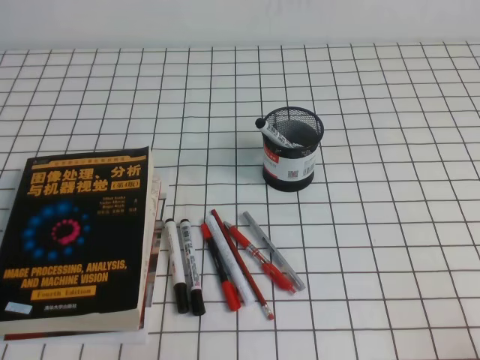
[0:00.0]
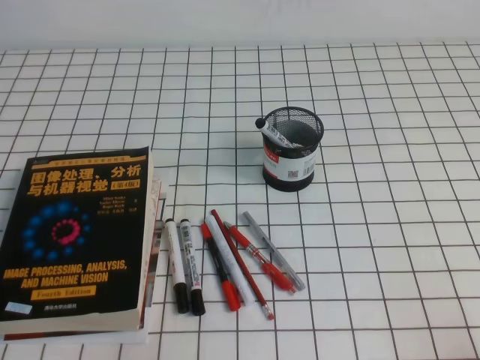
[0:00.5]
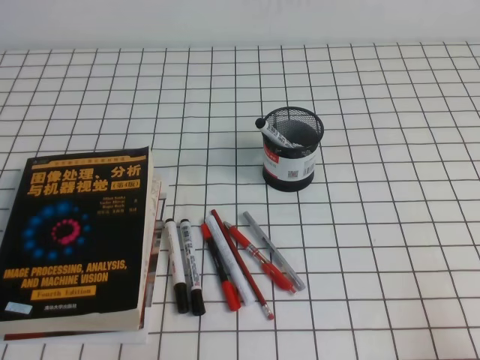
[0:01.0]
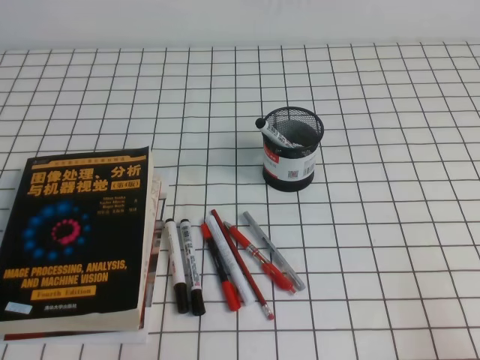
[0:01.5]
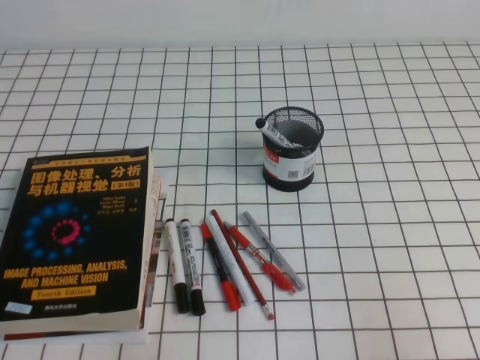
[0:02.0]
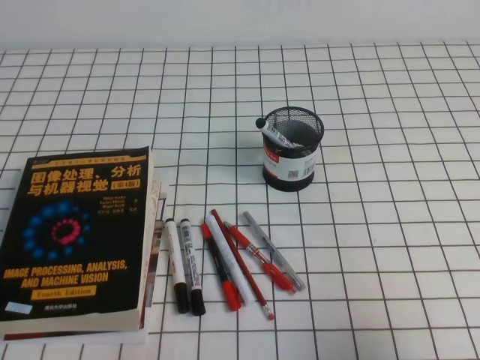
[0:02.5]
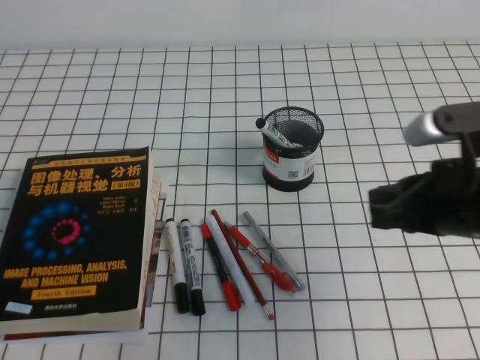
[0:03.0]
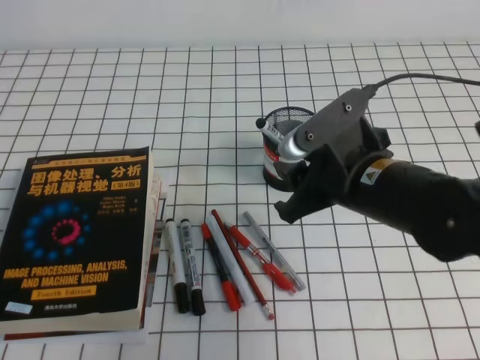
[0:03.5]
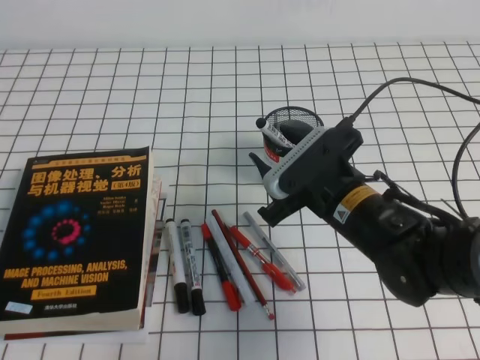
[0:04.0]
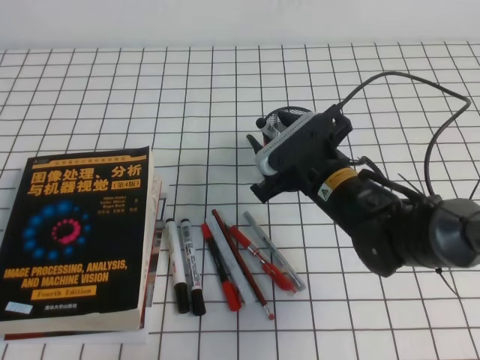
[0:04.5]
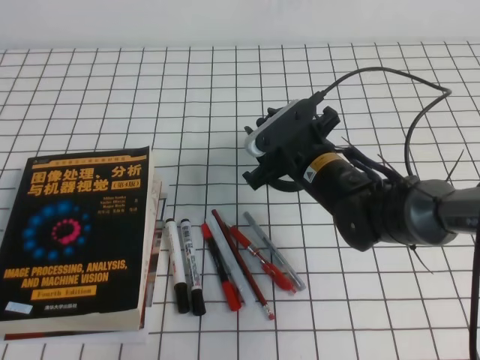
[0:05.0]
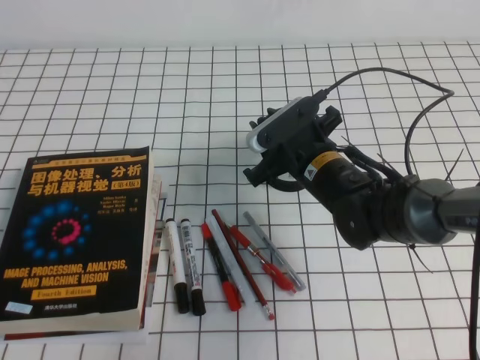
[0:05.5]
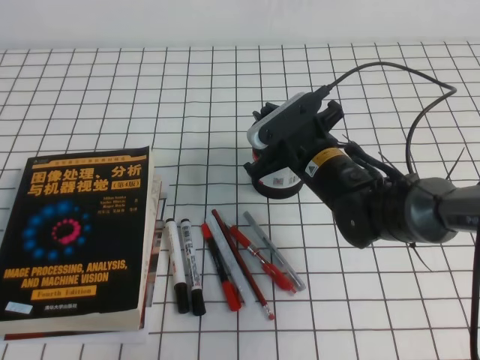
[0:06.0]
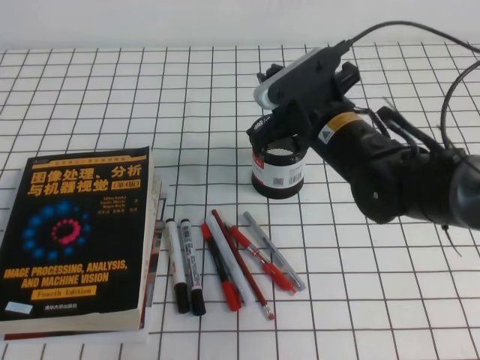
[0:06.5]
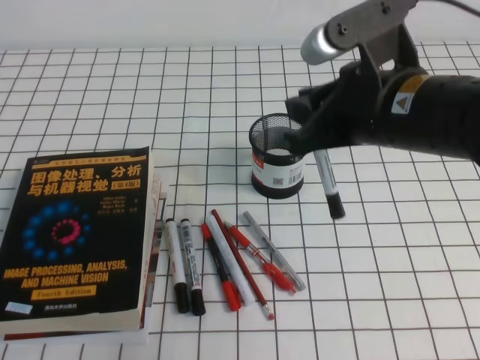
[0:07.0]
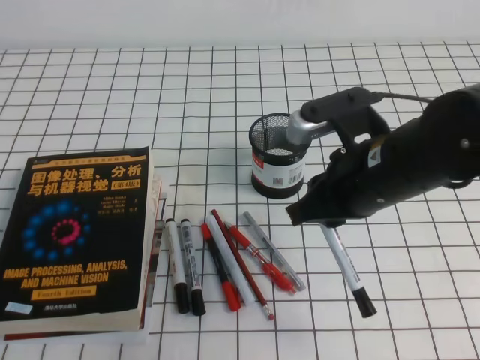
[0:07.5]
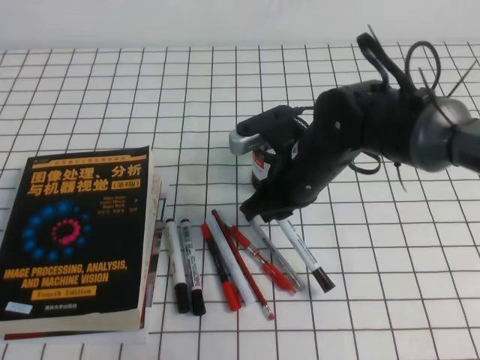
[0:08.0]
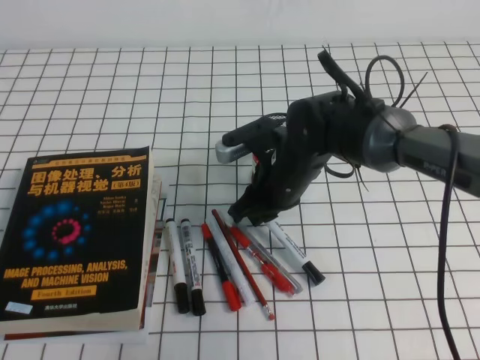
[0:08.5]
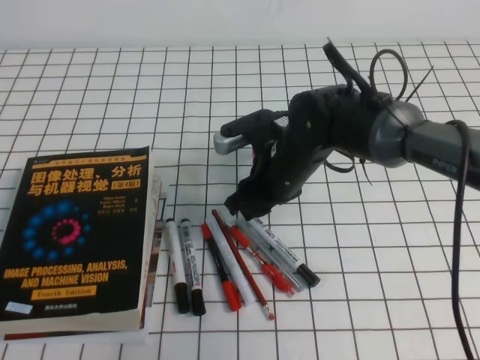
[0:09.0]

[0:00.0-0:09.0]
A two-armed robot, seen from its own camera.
0:02.0 to 0:04.5: The right gripper moves forward and to the left, roughly 35 cm, and opens its fingers.
0:04.5 to 0:07.0: The right gripper moves upward, some 15 cm, and closes its fingers.
0:07.0 to 0:09.0: The right gripper moves downward, forward and to the left, some 15 cm.

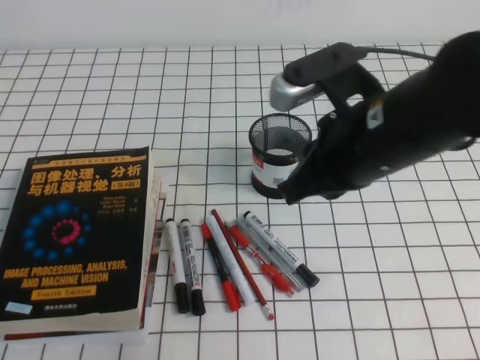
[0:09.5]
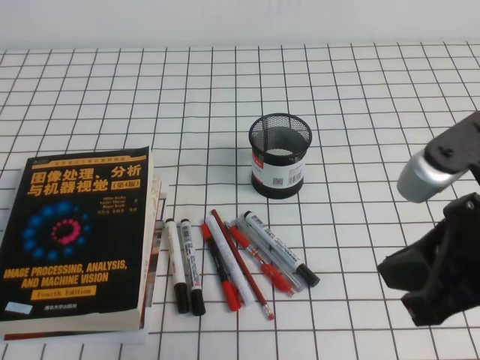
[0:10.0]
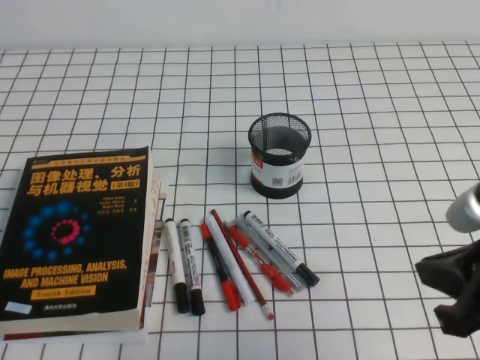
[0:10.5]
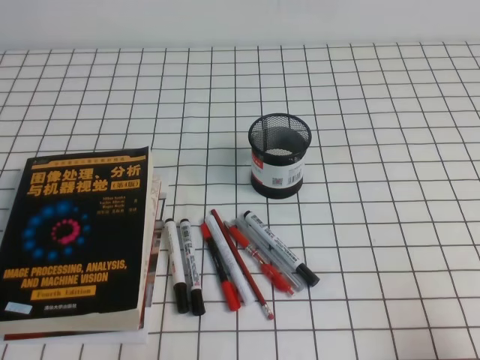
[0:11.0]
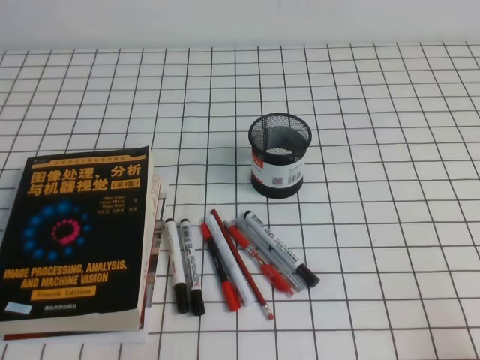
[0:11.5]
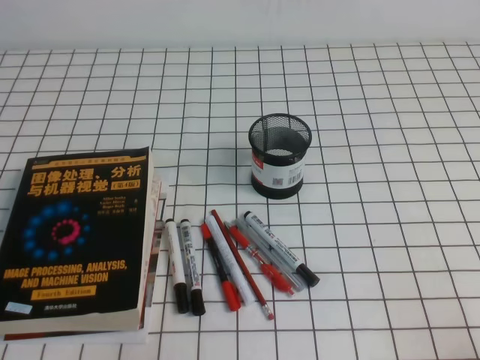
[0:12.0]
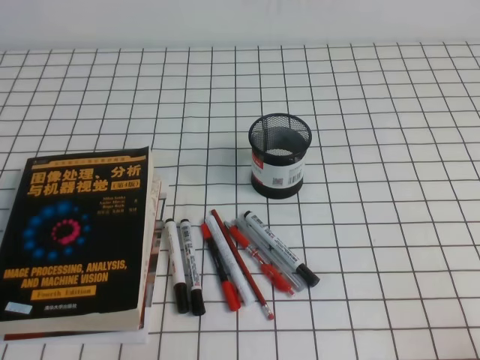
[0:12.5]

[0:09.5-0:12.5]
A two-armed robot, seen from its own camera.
Step, 0:09.5 to 0:12.5: Pick up the pen from the pen holder.
0:09.5 to 0:11.0: The right gripper shifts roughly 30 cm to the right, backward and downward.

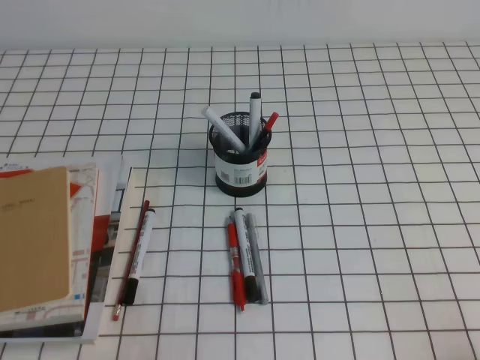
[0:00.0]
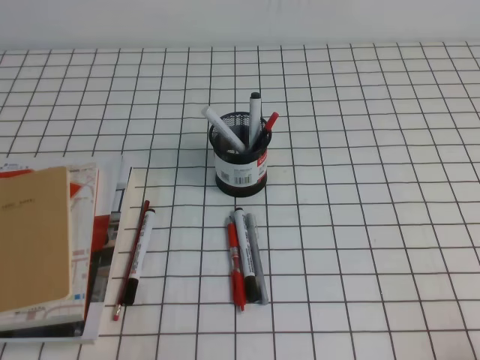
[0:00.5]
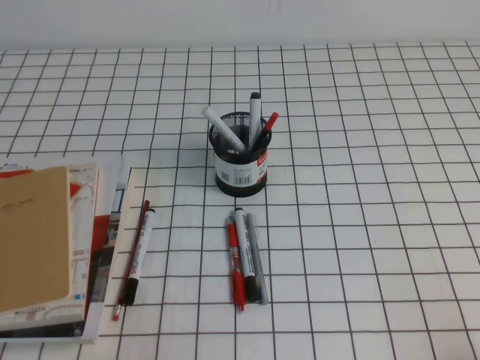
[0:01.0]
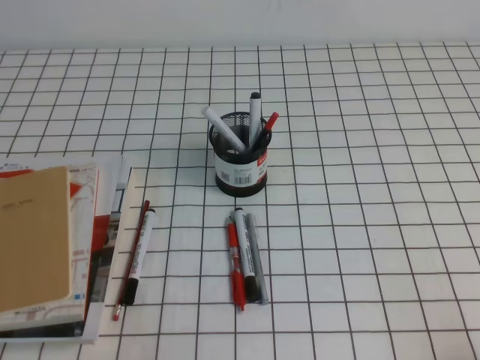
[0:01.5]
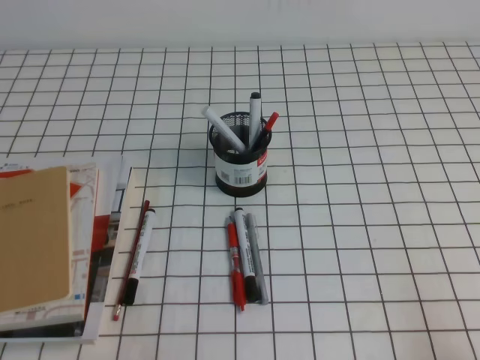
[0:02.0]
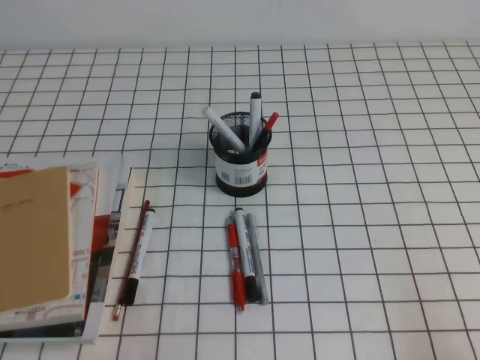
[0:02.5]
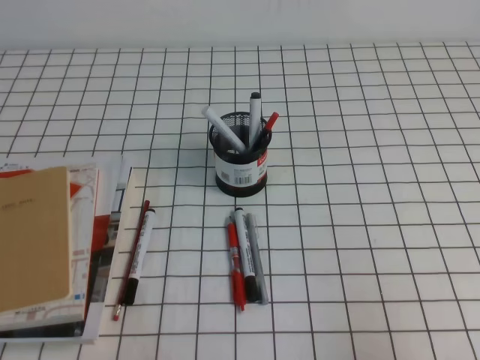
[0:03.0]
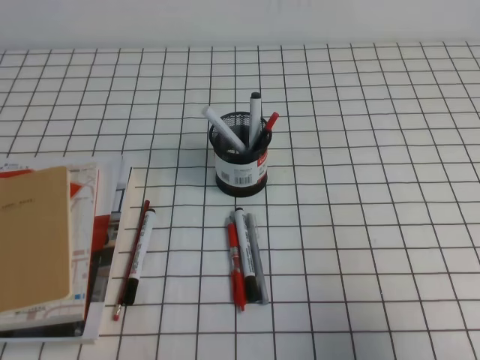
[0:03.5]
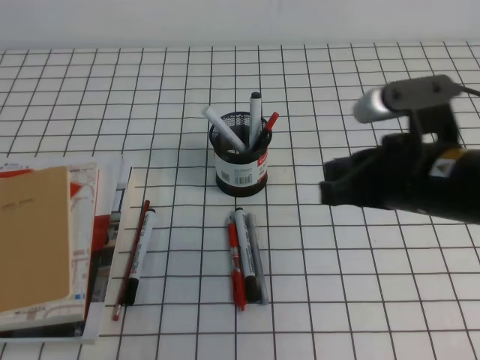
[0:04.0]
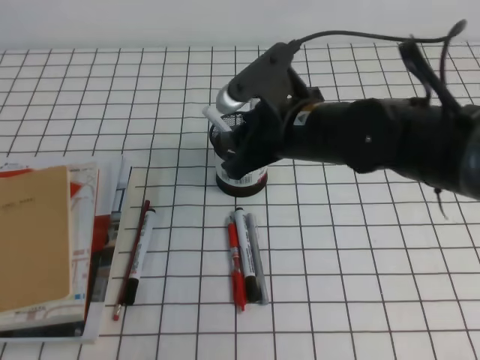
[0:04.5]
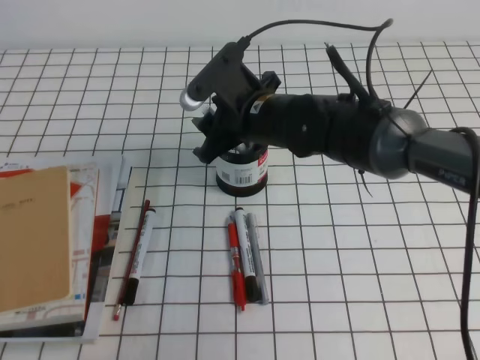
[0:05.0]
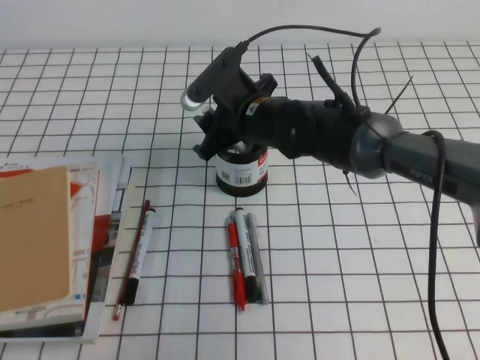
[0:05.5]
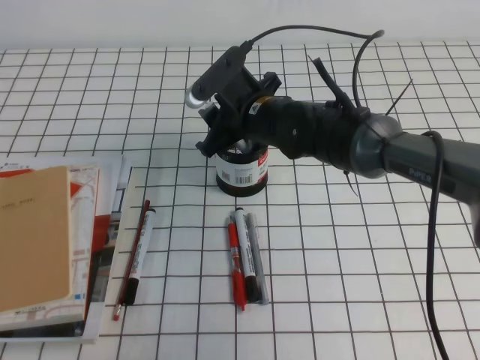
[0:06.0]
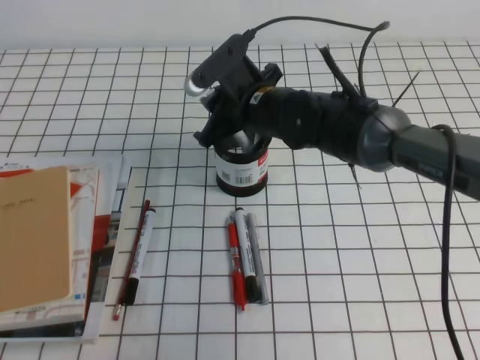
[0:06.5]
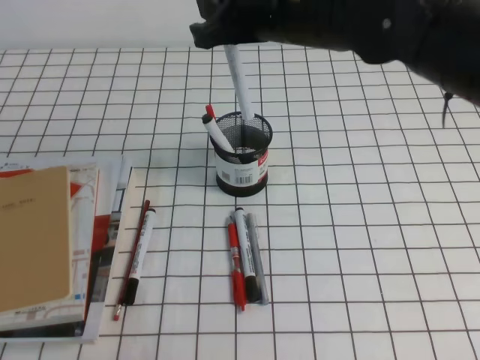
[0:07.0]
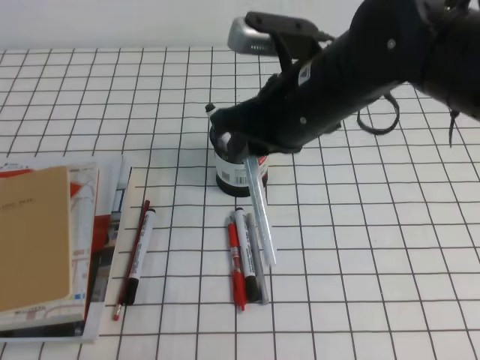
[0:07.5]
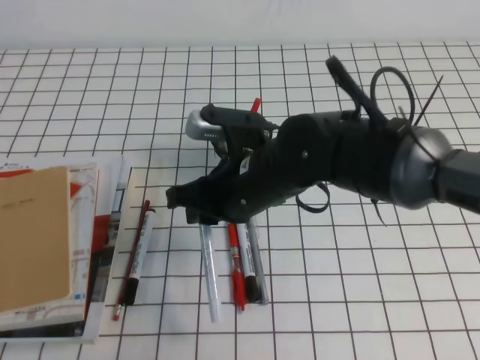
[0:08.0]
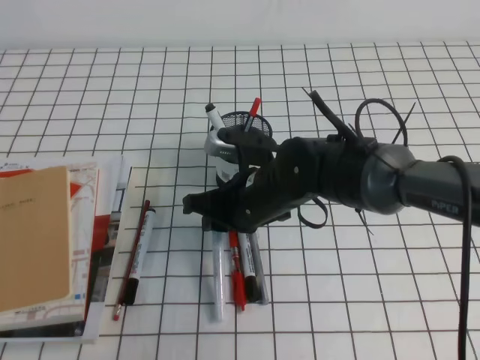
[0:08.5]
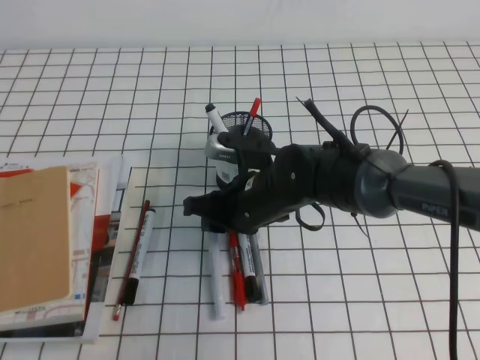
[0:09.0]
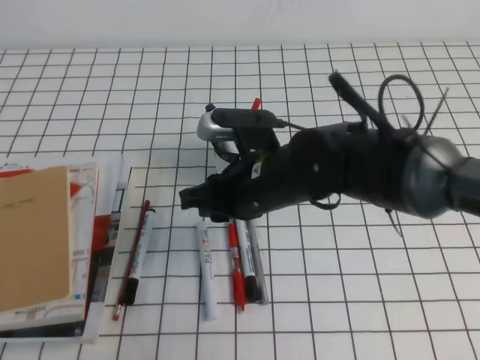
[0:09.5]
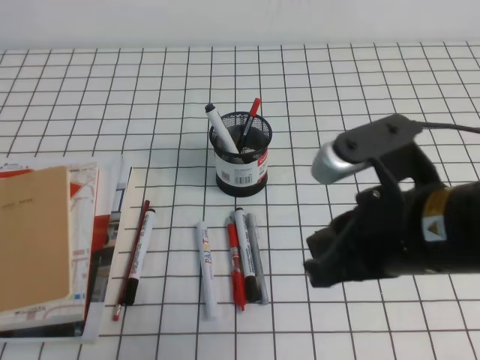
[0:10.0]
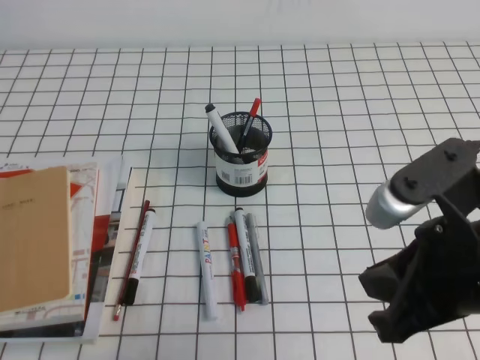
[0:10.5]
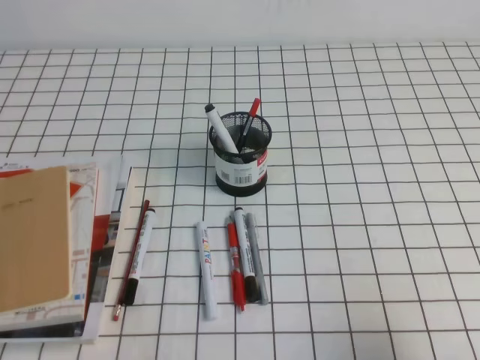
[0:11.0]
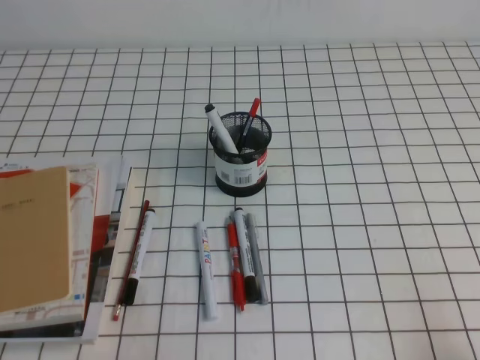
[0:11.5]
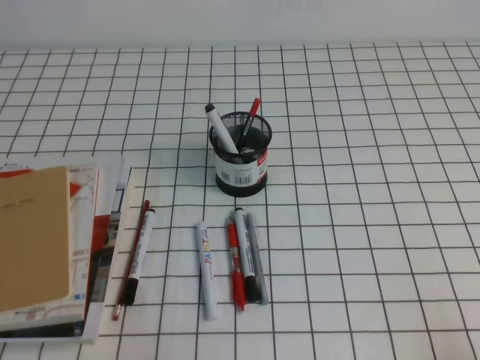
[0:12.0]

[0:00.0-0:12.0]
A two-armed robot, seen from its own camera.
Step, 0:00.0 to 0:12.0: Pick up the pen from the pen holder.
0:02.0 to 0:04.0: The right gripper shifts about 25 cm forward, to the left and upward.
0:04.0 to 0:06.0: The right gripper travels forward, to the left and downward by about 25 cm, and opens up.
0:06.0 to 0:08.0: The right gripper travels backward by some 10 cm, goes upward and returns, about 15 cm each way, and closes up.
0:08.0 to 0:10.0: The right gripper travels backward, to the right and upward by roughly 15 cm.
0:10.0 to 0:12.0: The right gripper shifts roughly 25 cm to the right, backward and downward.

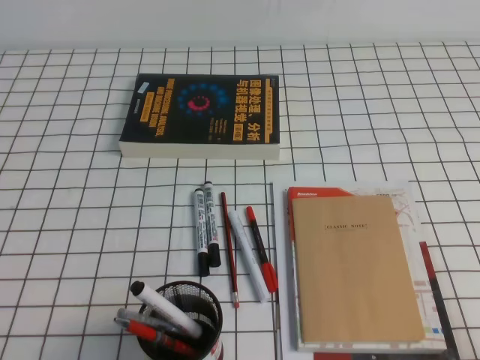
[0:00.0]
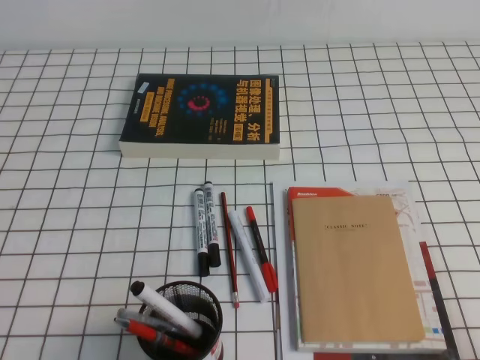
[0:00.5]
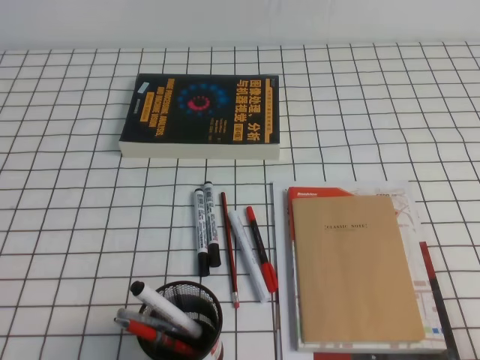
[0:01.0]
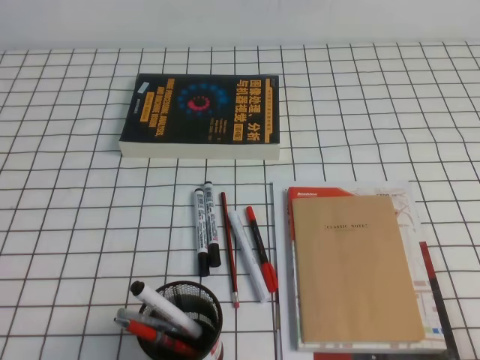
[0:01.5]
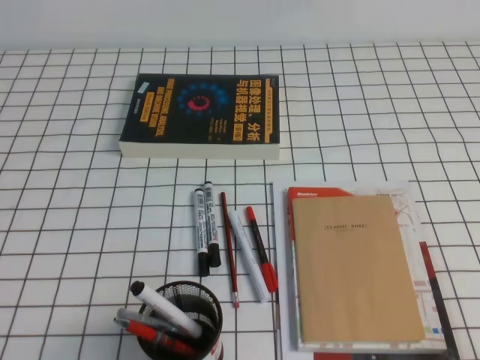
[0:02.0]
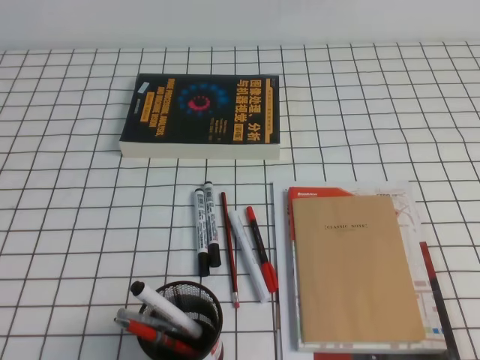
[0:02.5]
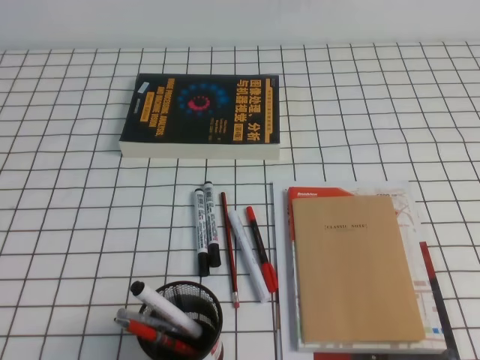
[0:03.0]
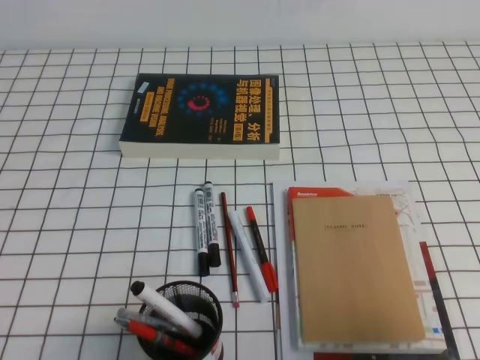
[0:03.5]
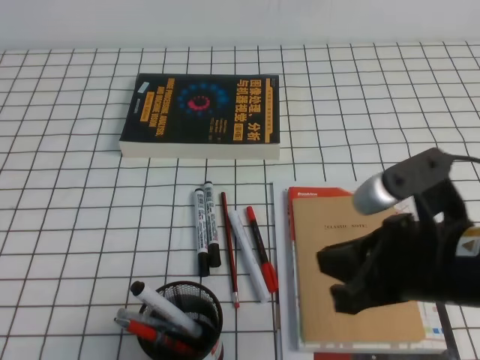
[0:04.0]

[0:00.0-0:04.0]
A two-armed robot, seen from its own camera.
0:02.0 to 0:04.0: The right gripper moves to the left, forward and upward, some 20 cm.
